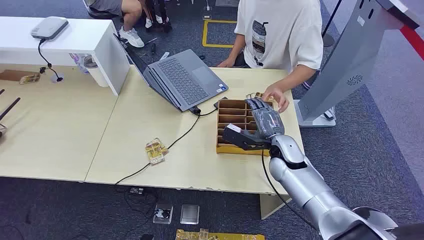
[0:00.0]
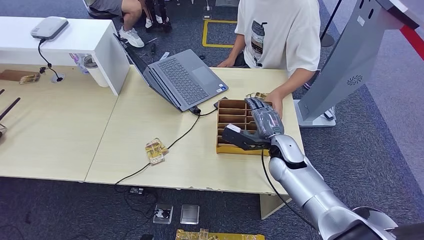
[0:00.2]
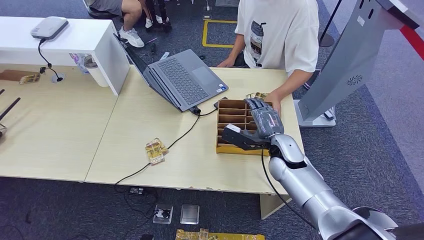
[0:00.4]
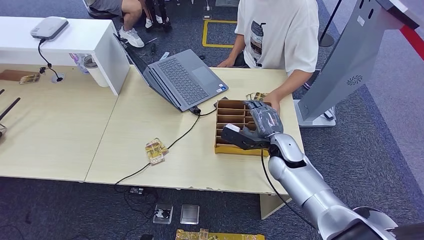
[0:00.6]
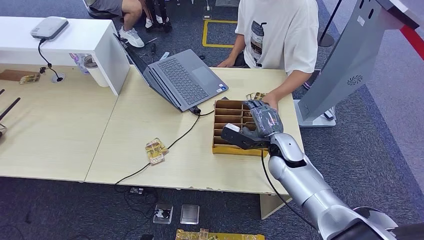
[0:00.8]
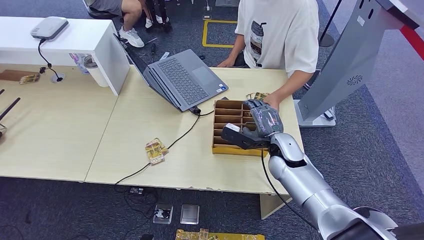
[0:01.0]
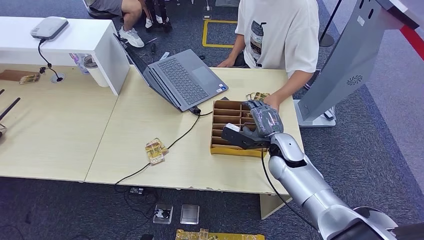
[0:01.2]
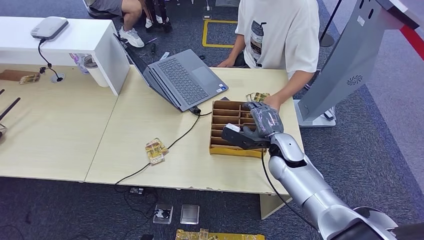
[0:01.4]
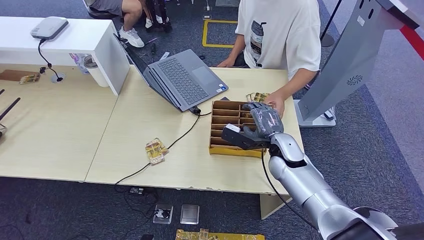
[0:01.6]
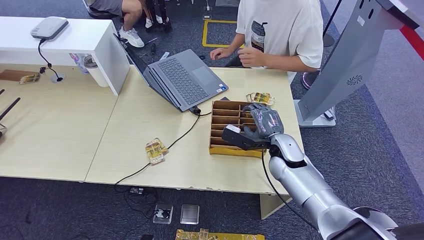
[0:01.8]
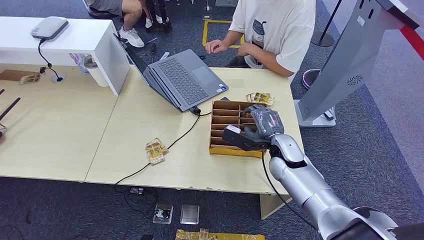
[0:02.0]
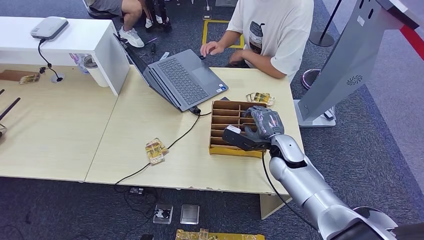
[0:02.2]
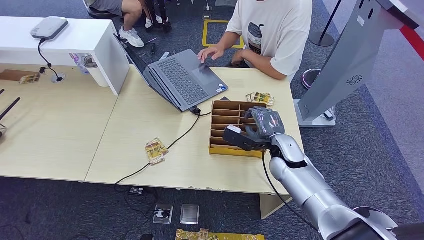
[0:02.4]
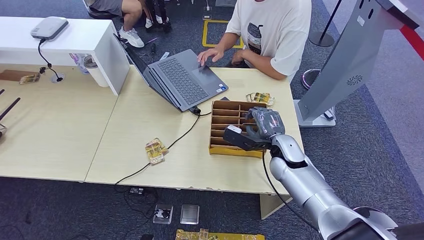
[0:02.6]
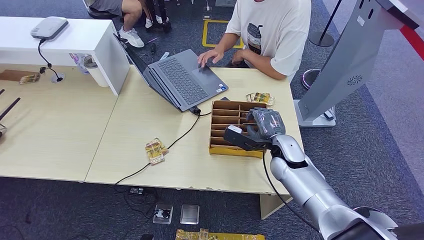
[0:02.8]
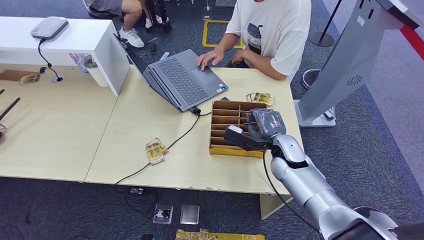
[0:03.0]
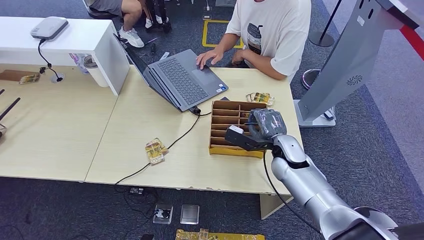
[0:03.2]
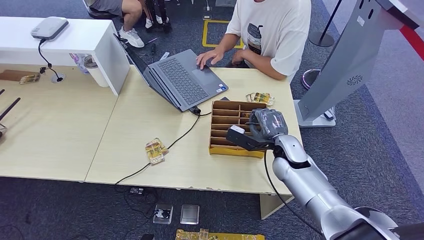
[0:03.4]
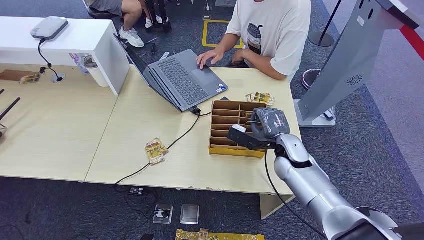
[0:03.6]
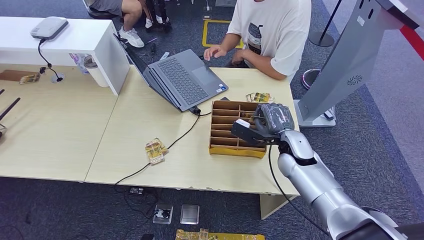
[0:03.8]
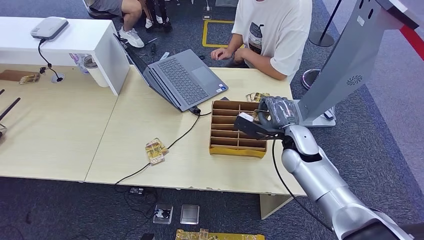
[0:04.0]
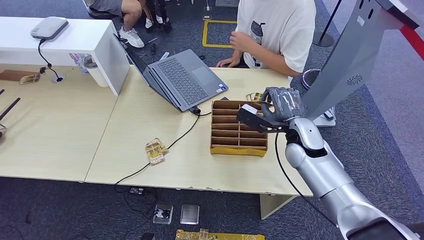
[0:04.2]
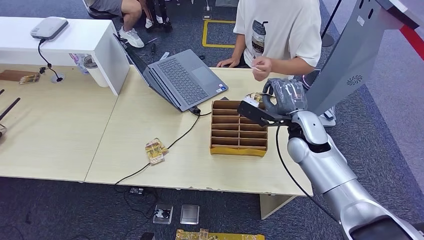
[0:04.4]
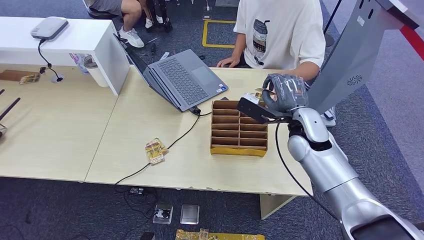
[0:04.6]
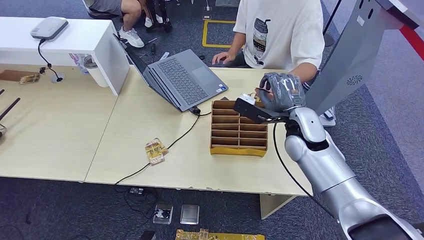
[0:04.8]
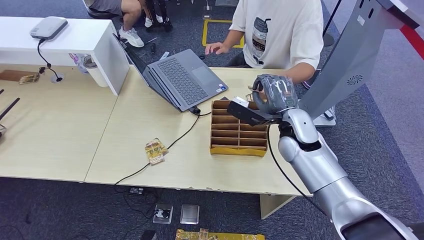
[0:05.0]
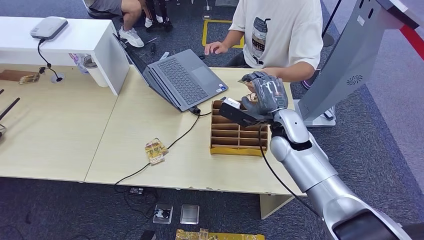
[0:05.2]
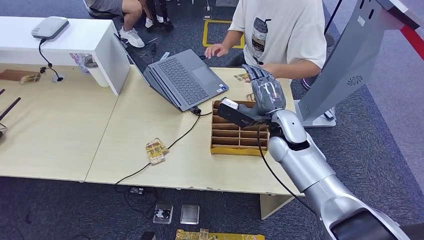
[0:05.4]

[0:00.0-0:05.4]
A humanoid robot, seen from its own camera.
Step, 0:00.0 to 0:03.6: Pick up the key card from the card box.
Step, 0:03.8 to 0:05.4: Hand the key card to the target.
0:01.4 to 0:02.8: Both hands stay put.
0:02.8 to 0:04.0: There are only small adjustments of the hands.
0:04.0 to 0:05.4: The right hand changes place by about 5 cm.
